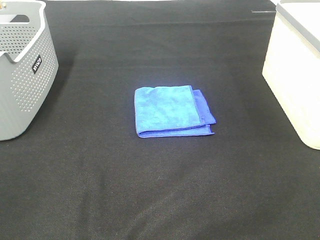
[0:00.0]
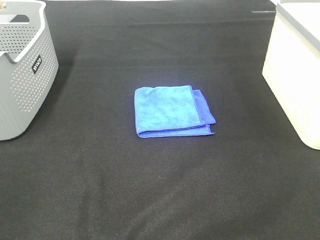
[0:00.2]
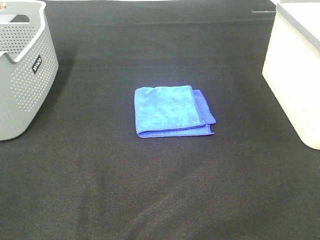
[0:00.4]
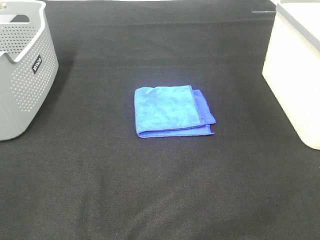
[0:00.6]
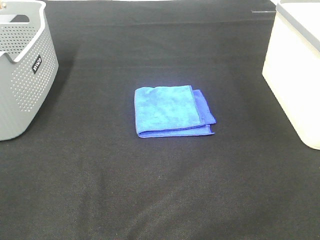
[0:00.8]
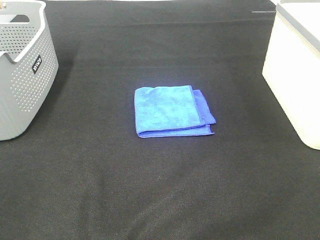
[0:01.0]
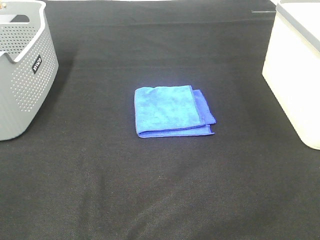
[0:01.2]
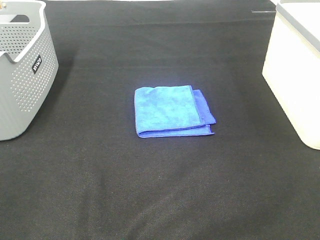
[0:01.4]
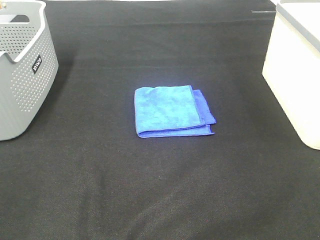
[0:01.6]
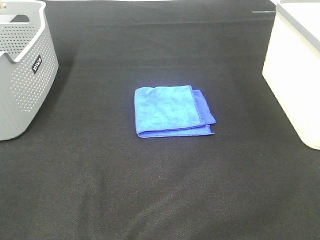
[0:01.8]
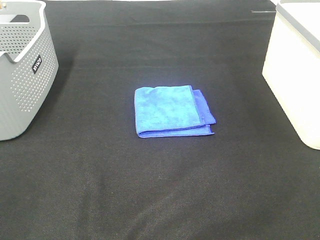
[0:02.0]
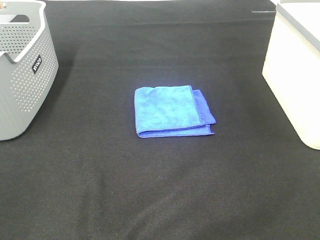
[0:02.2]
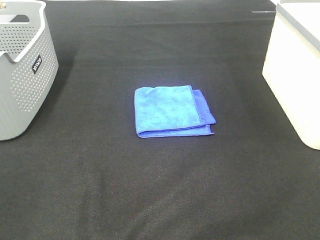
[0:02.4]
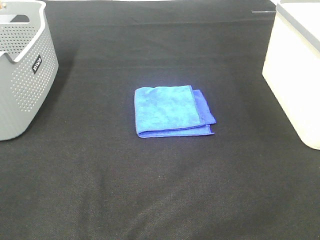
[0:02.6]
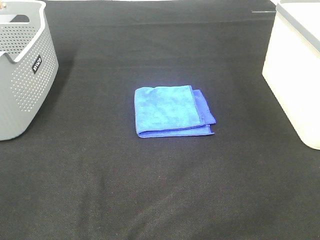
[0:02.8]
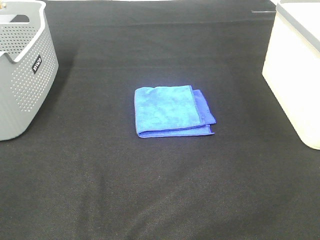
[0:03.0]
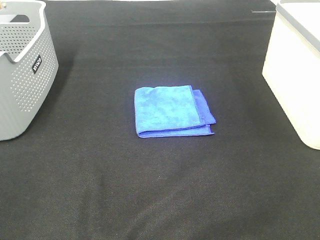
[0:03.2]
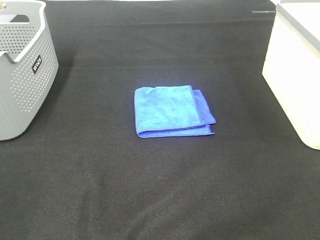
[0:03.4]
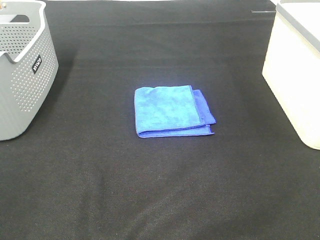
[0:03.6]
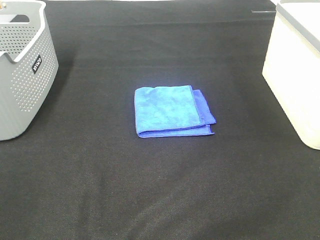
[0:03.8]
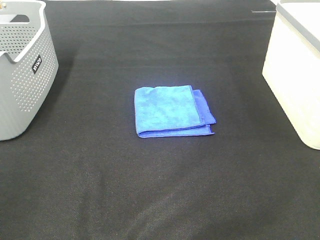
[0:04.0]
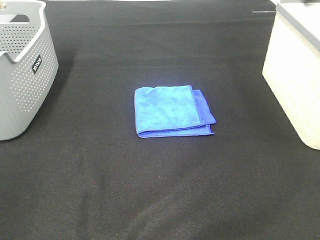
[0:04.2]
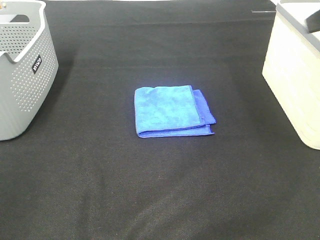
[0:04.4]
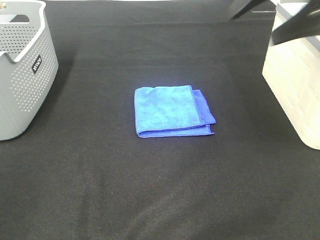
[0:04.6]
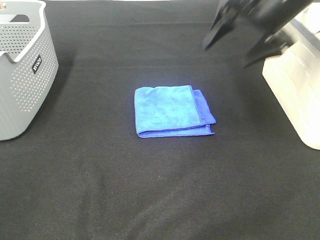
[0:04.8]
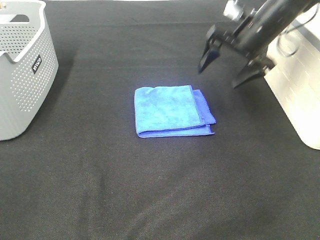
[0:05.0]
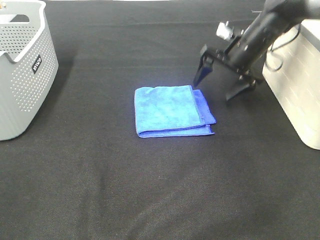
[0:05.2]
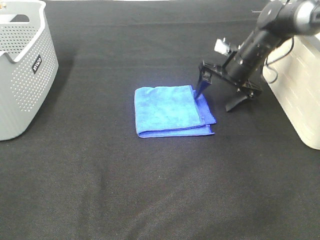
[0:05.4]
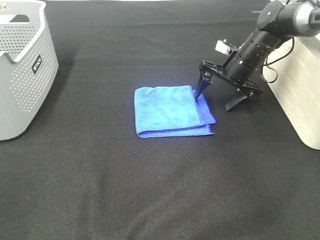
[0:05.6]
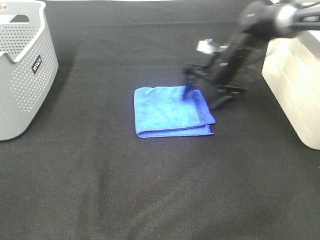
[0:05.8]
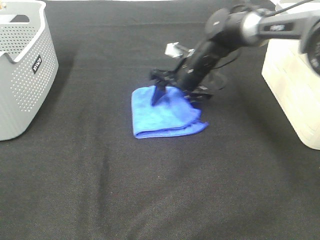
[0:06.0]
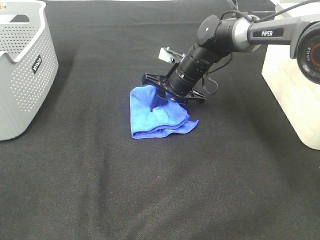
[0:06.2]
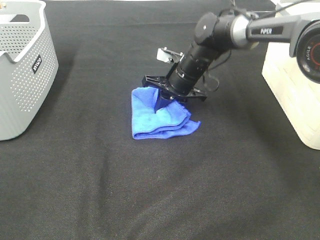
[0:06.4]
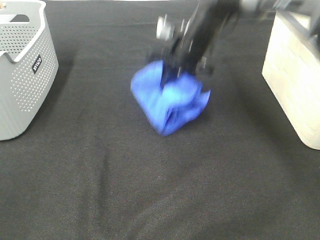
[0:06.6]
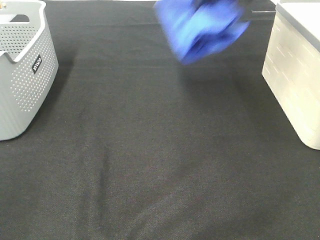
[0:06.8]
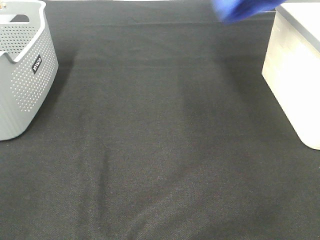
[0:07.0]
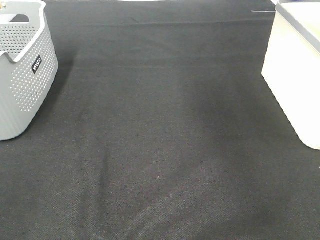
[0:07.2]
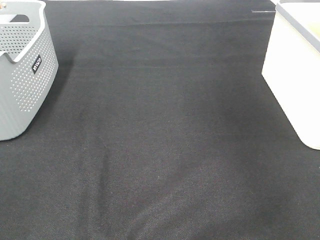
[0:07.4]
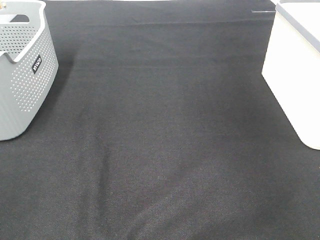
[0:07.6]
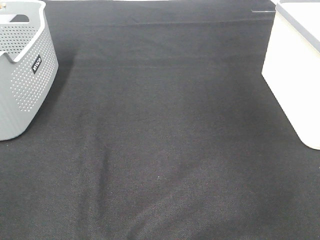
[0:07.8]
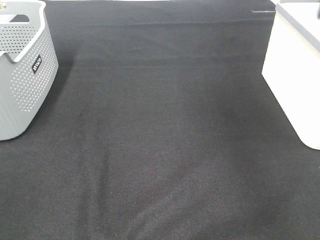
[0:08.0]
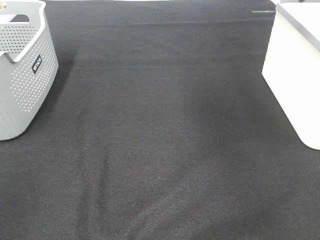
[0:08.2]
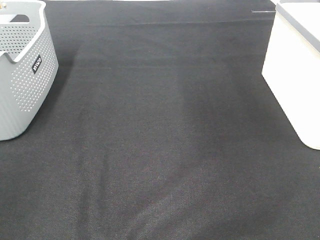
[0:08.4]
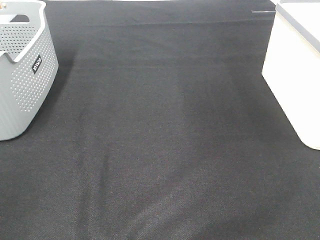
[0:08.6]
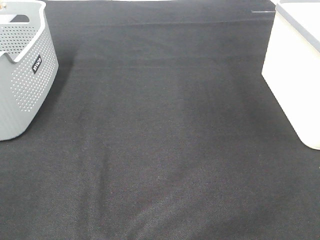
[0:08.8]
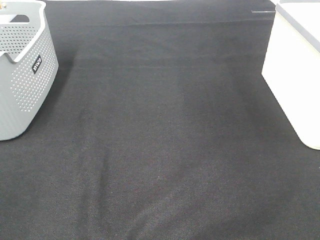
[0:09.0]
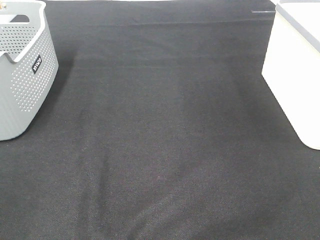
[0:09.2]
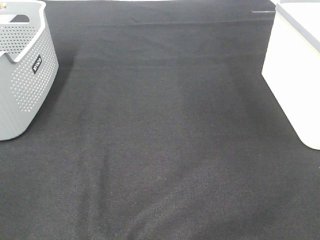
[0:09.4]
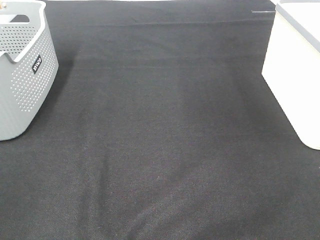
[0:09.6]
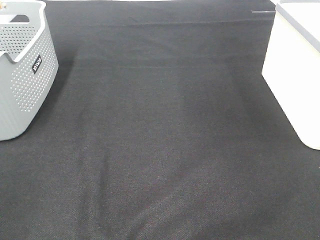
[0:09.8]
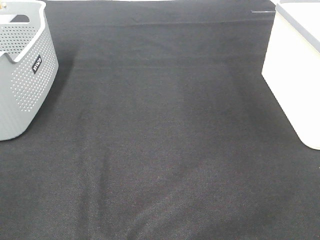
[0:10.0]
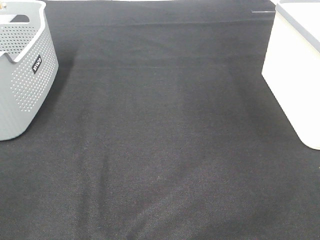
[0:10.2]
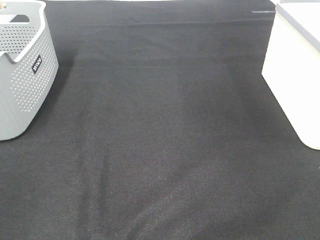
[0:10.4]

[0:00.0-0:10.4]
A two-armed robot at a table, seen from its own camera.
Step, 0:00.0 to 0:06.4: Right hand: grab the folded blue towel.
Step, 0:06.6 to 0:07.8: Right hand: place the blue towel in right basket.
0:00.0 to 0:03.0: The two grippers keep their place.
0:04.4 to 0:06.0: The right gripper moves downward, forward and to the left, some 40 cm, and closes up.
0:06.0 to 0:07.4: The right gripper heads to the right and upward, covering some 40 cm, and closes up.

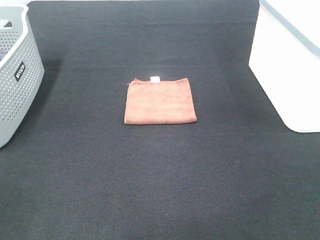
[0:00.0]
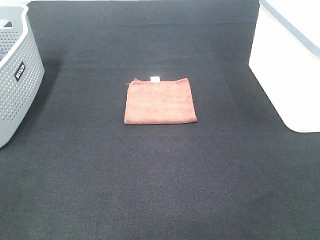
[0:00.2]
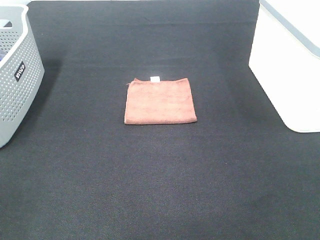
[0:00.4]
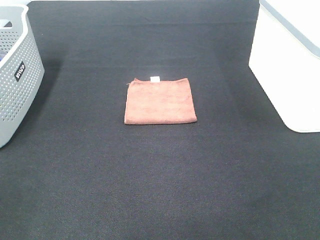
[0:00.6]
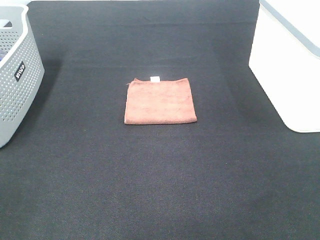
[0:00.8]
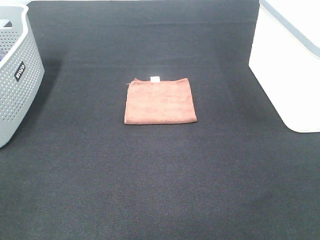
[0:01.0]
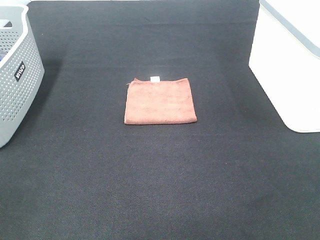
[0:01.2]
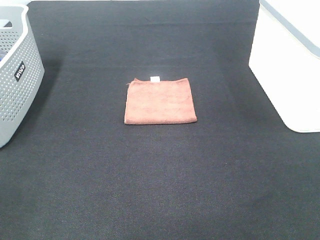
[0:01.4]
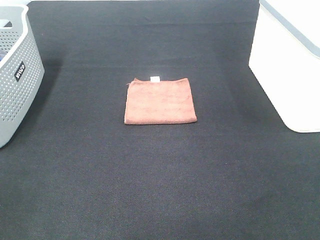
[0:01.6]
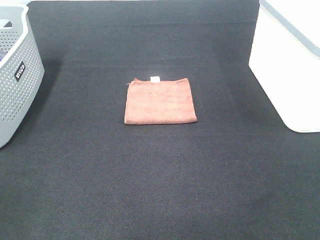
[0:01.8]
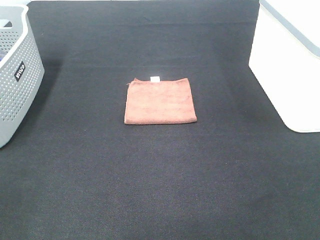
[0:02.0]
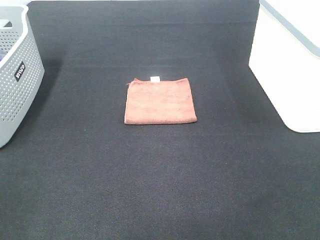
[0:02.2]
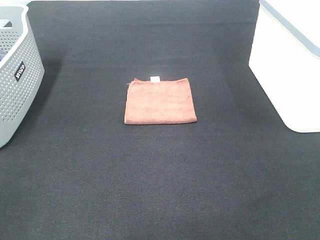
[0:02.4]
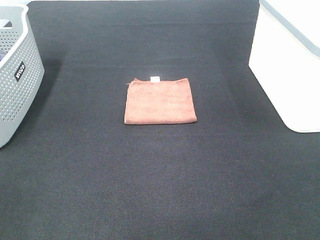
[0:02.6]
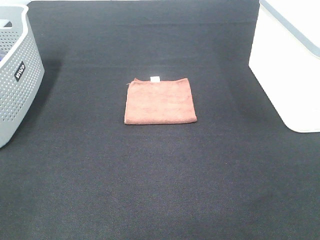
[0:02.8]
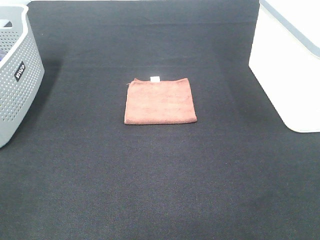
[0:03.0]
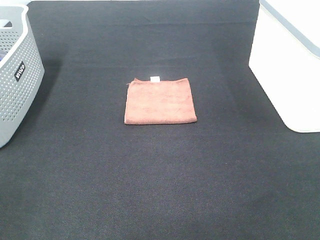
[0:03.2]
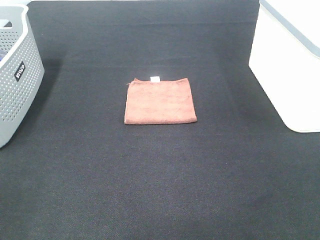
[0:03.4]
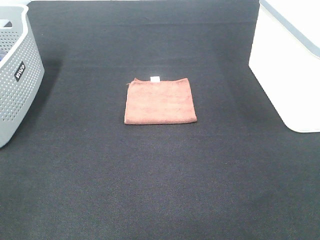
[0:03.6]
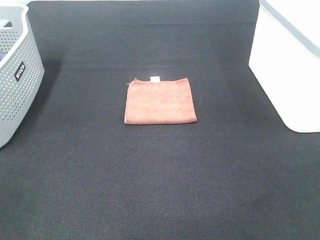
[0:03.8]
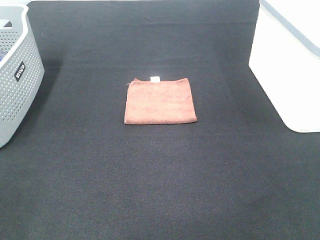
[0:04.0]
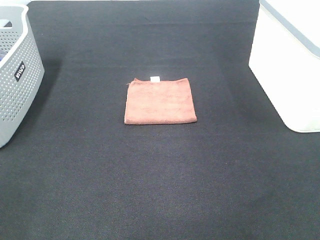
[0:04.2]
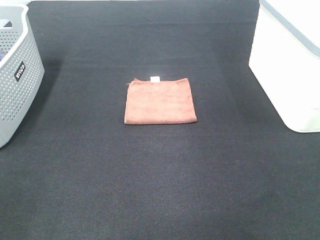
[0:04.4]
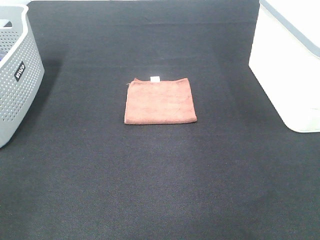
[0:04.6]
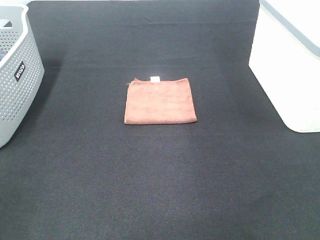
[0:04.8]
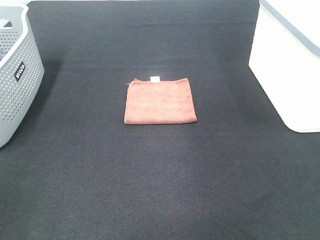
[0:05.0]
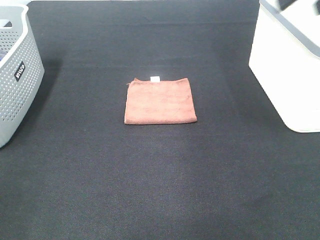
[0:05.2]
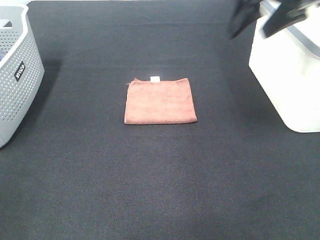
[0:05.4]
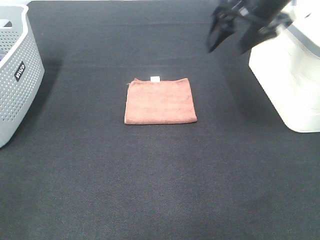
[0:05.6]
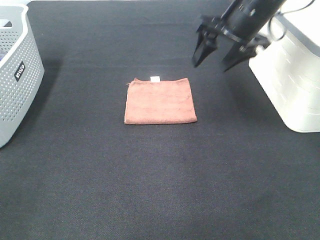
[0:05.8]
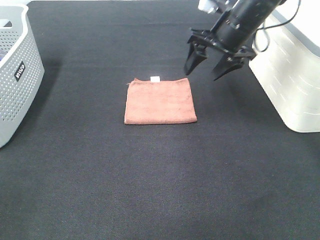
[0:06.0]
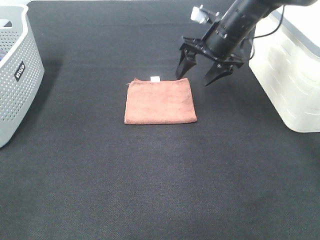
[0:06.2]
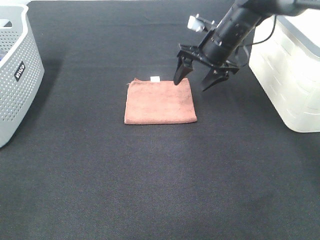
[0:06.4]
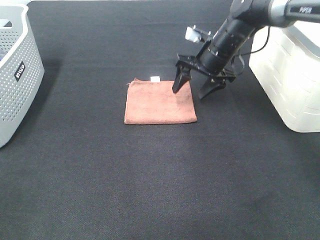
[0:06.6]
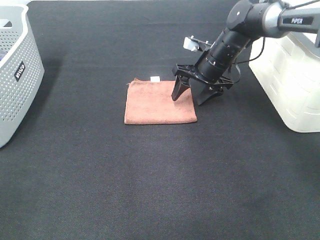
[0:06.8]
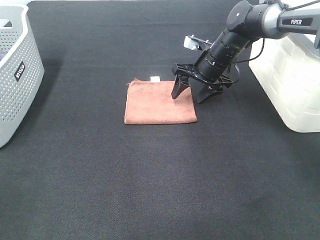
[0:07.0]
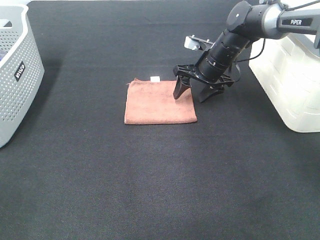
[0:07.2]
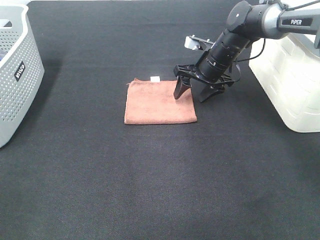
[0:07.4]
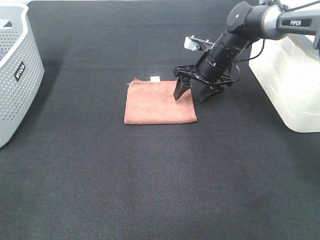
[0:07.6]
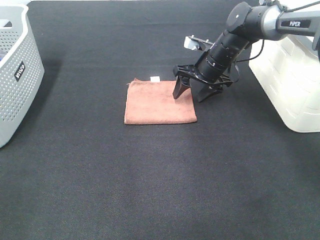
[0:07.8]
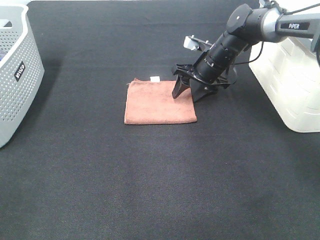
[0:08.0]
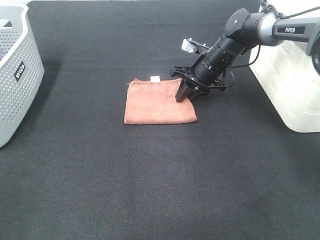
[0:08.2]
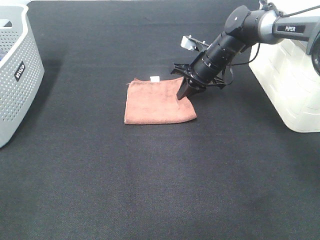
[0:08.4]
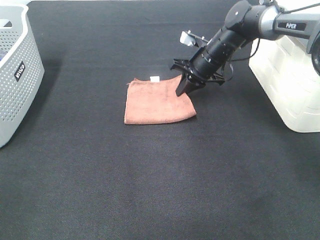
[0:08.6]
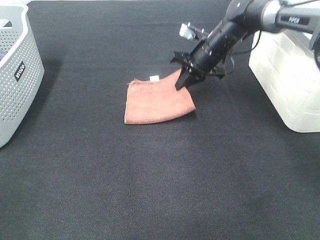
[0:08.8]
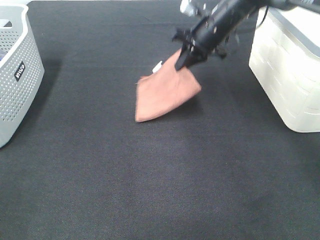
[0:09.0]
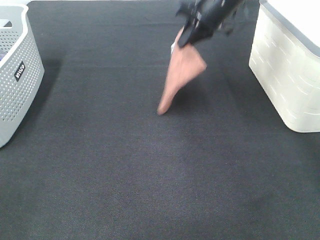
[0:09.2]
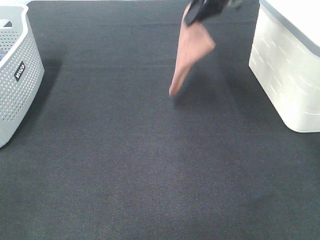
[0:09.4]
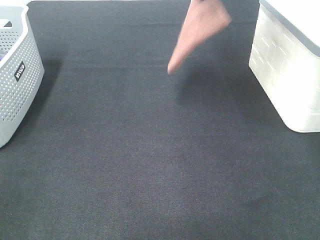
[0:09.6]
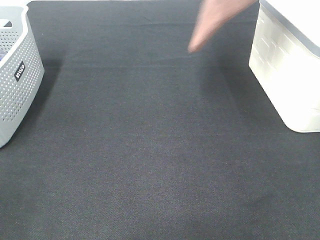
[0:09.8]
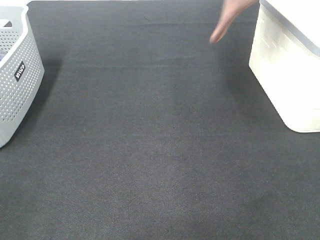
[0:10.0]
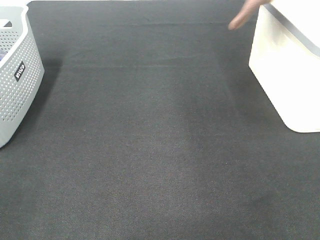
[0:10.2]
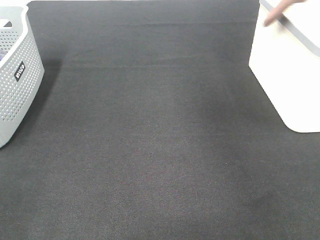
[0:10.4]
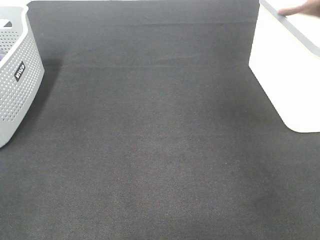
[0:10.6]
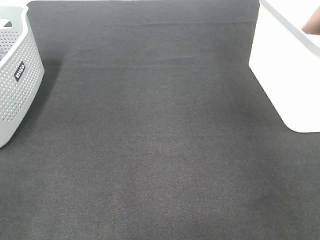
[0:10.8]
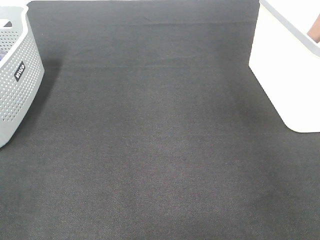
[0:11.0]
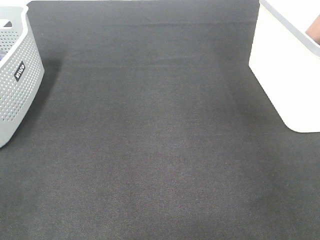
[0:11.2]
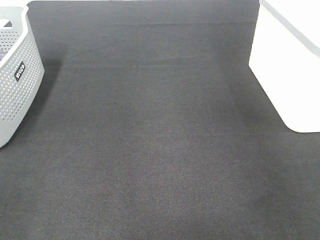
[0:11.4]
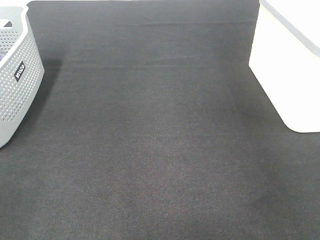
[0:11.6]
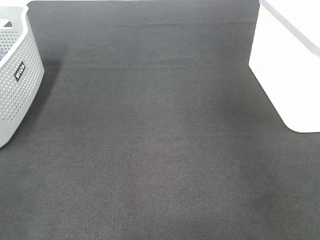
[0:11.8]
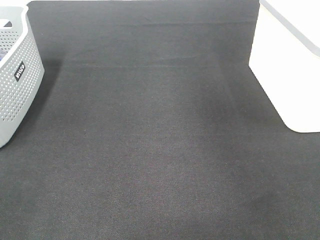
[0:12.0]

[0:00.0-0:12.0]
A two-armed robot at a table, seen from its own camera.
Step, 0:00.0 to 0:08.2: Right hand: grab the folded brown towel.
Step, 0:08.4 to 0:11.4: Right hand: place the brown towel in right basket.
0:00.0 to 0:03.0: Neither gripper changes place.
0:04.4 to 0:06.0: The right gripper shifts roughly 35 cm forward, downward and to the left.
0:06.0 to 0:07.6: The right gripper shifts some 10 cm downward.
0:07.6 to 0:09.0: The right gripper goes some 10 cm upward, and closes.
0:09.0 to 0:10.4: The right gripper moves upward and to the right, some 30 cm.
0:10.4 to 0:12.0: The right gripper moves to the left, approximately 5 cm, and opens up.
